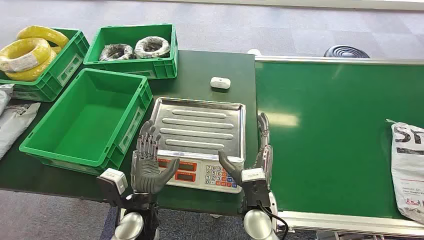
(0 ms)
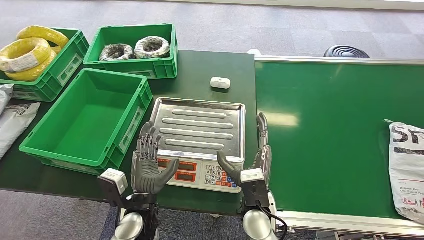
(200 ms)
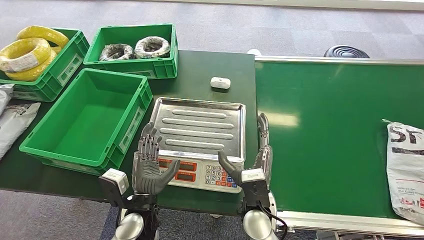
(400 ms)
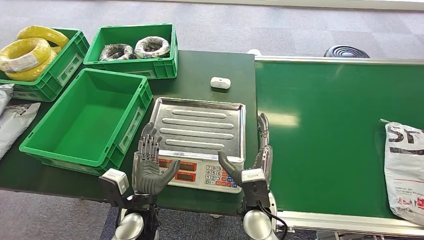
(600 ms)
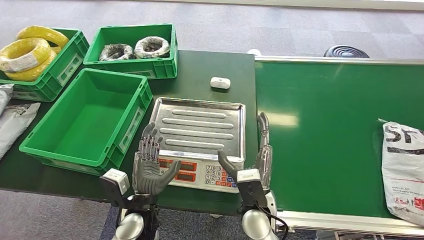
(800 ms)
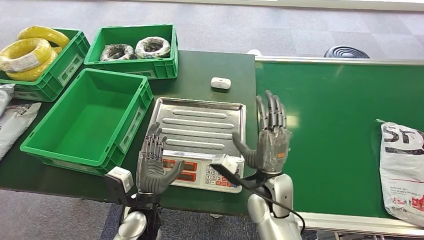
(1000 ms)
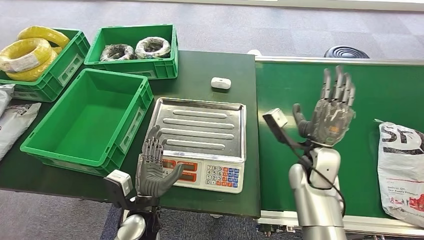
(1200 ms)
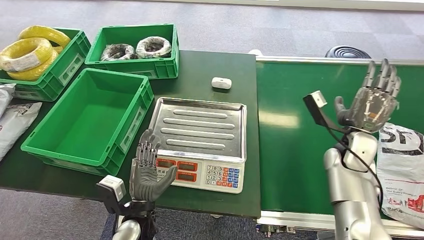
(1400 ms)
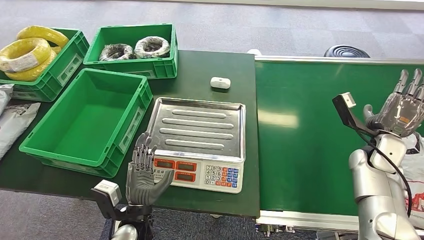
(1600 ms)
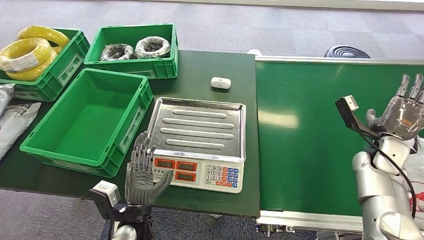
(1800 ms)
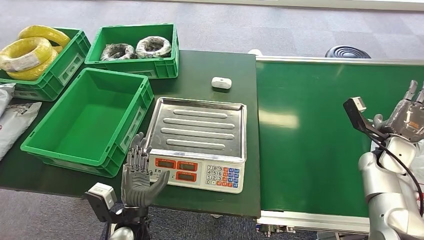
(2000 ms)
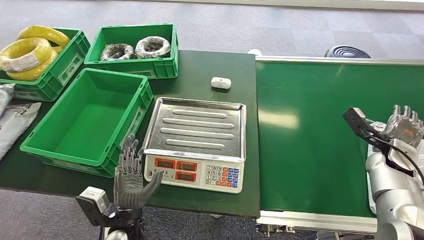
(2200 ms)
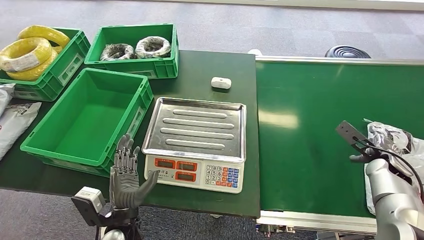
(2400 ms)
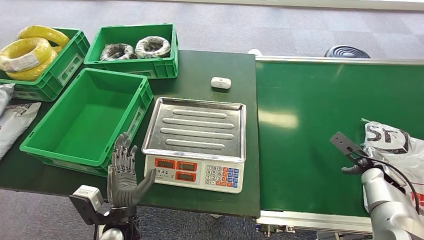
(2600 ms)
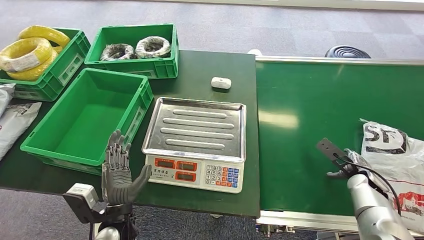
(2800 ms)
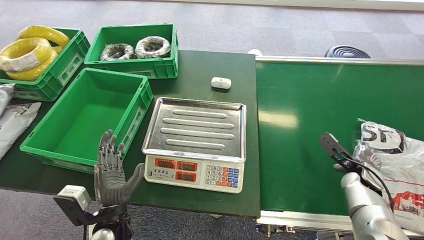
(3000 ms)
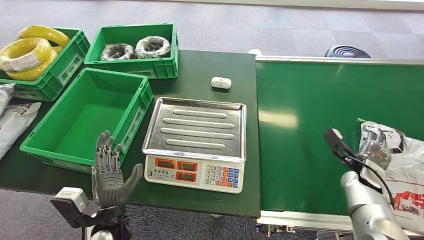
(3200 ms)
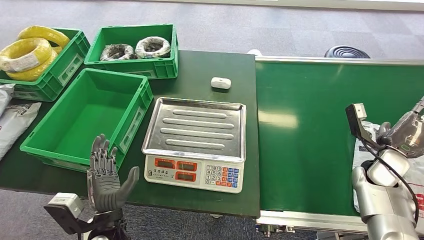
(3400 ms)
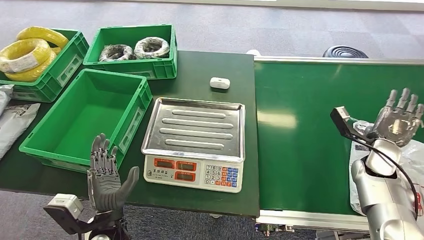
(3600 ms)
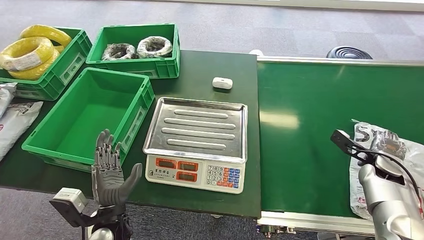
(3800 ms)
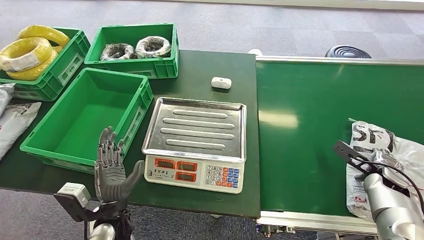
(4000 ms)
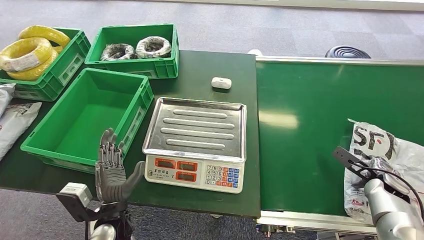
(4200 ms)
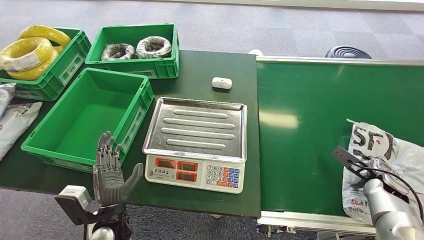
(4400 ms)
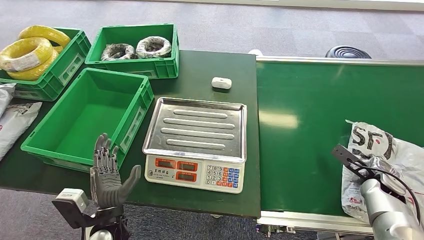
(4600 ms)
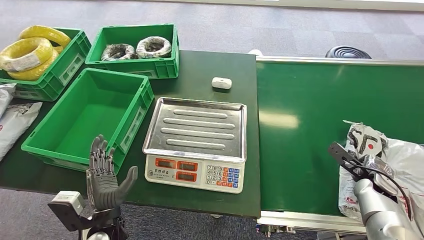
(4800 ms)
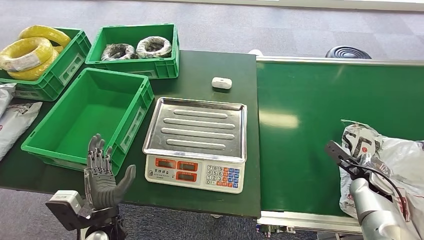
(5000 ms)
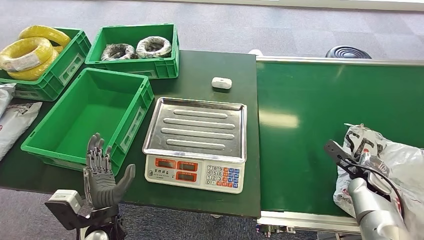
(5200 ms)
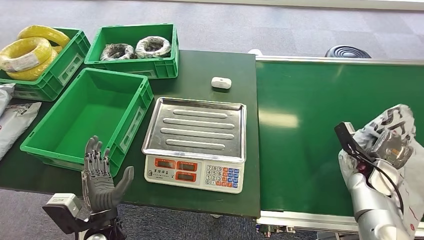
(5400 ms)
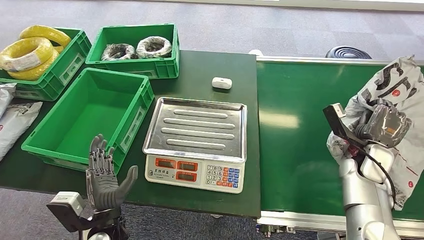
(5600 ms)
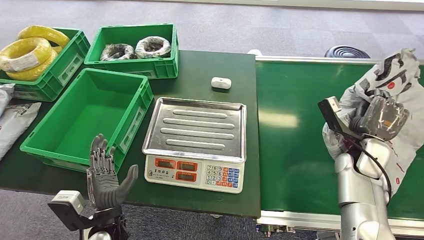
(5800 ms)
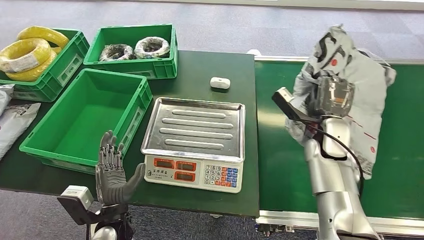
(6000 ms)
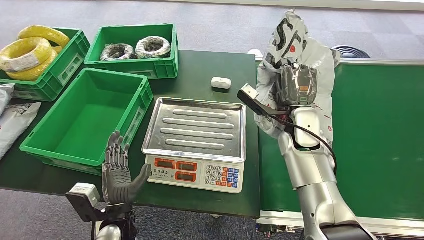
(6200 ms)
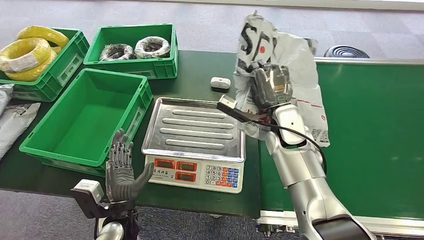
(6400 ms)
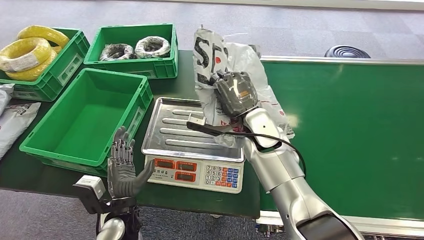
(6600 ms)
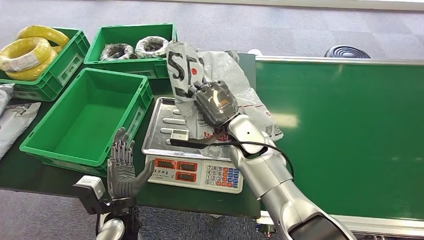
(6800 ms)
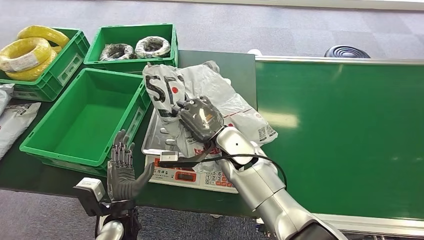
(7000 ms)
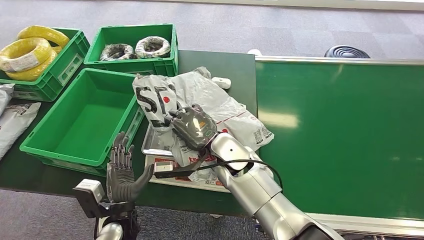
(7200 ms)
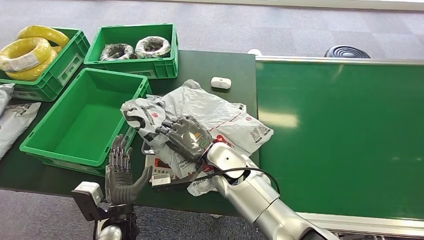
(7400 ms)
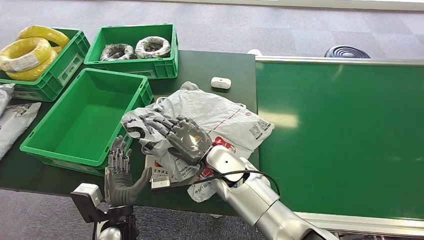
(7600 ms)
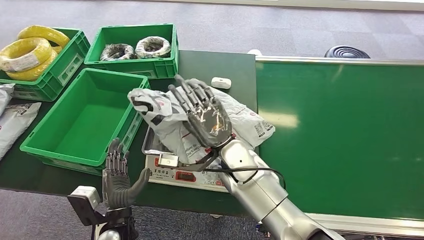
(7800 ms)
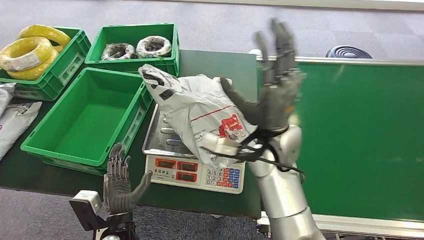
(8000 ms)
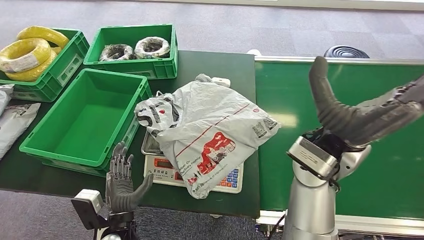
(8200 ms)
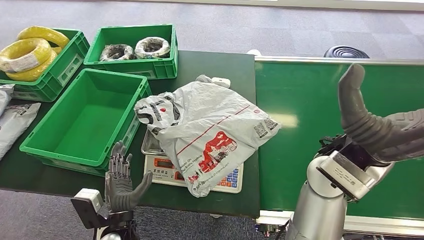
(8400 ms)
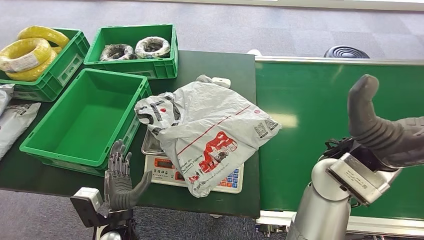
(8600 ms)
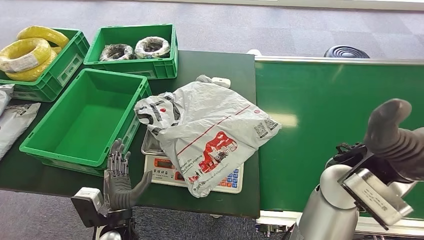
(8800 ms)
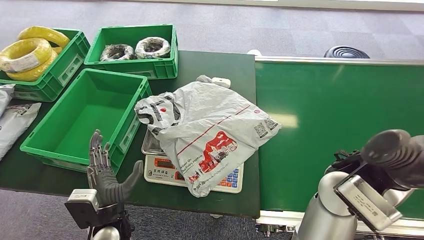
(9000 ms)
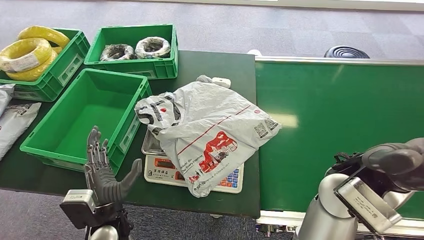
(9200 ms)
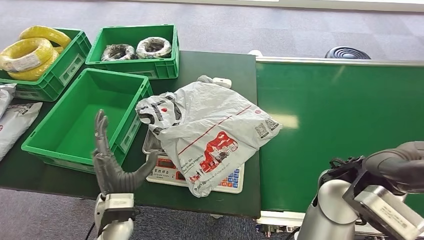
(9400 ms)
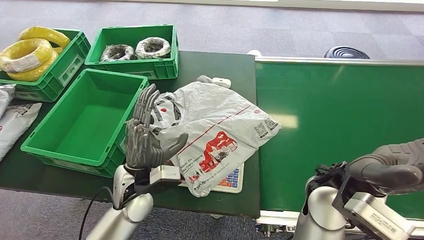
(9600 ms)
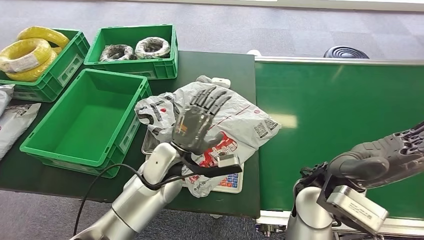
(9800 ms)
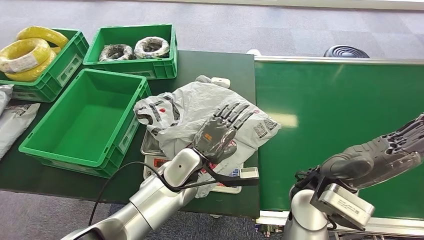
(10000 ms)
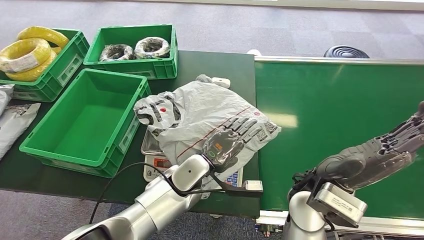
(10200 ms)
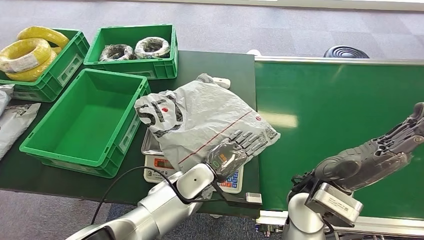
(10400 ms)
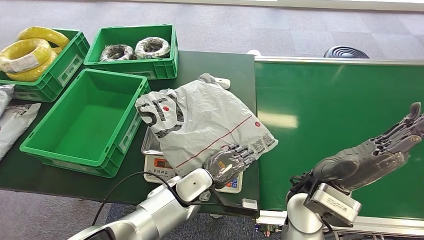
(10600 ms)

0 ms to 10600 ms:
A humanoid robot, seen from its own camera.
Step, 0 ms to 5800 ms: Pick up the package from the conveyor belt.
Step, 6200 ms to 8600 ms: Place the package onto the inbound machine.
1600 ms to 3000 ms: The right hand travels downward by some 10 cm.
3000 ms to 4600 ms: The right hand ends up approximately 5 cm from where it was.

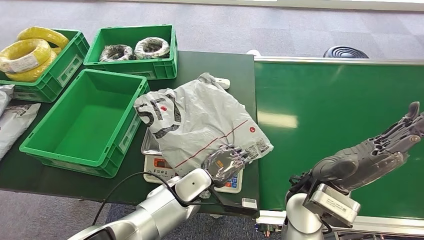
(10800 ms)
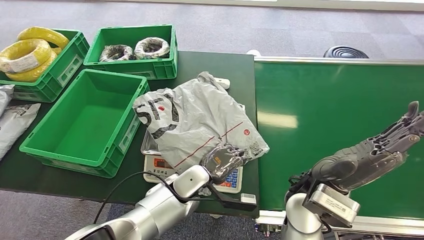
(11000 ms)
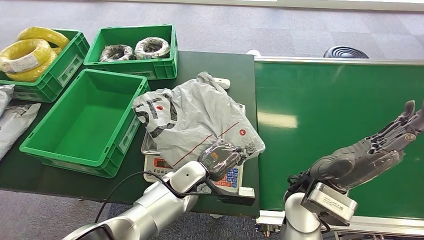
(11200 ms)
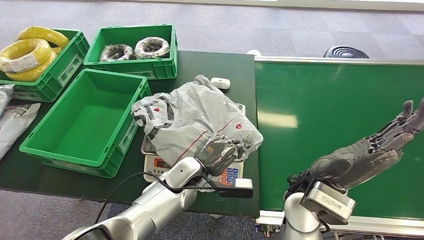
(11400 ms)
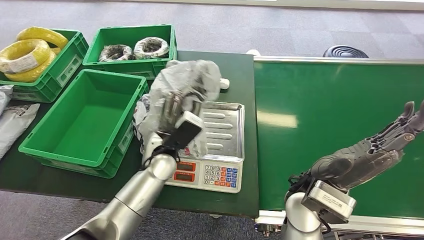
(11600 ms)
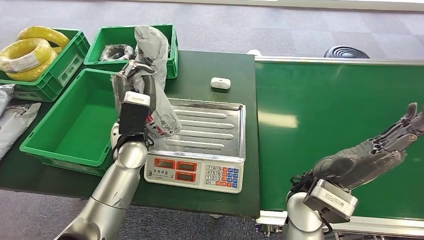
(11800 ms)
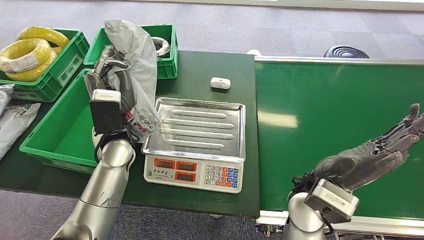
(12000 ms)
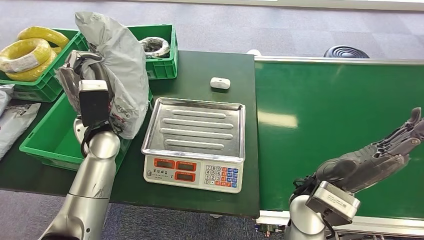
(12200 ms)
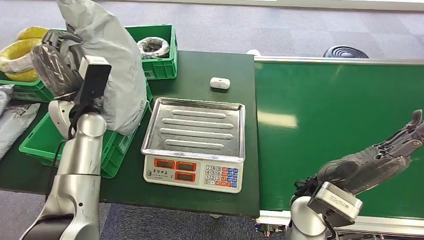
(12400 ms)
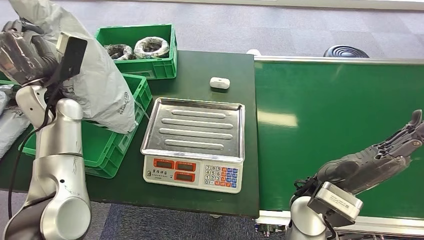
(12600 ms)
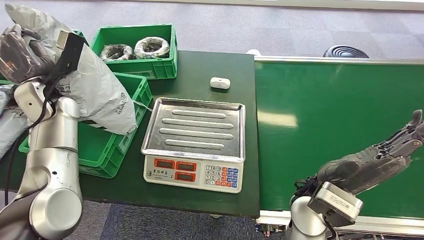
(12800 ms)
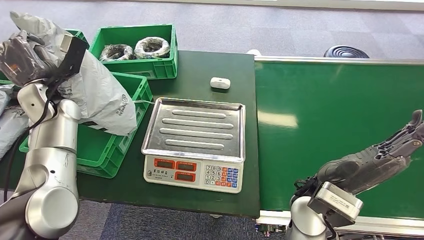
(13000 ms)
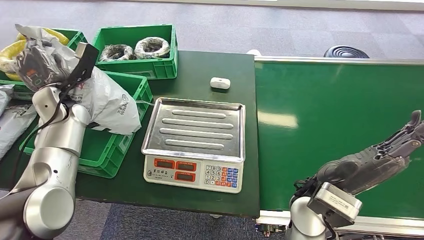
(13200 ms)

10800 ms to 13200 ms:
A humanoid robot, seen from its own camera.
Step, 12400 ms to 13200 ms: Place the package into the parcel locker.

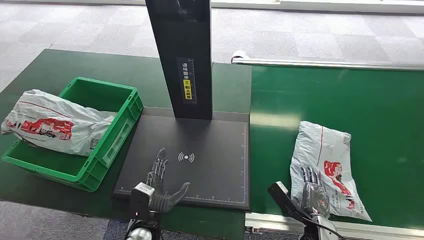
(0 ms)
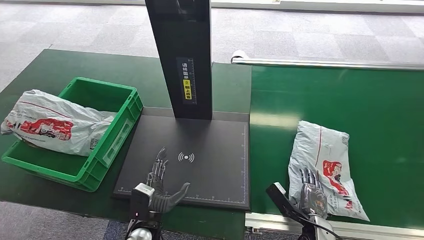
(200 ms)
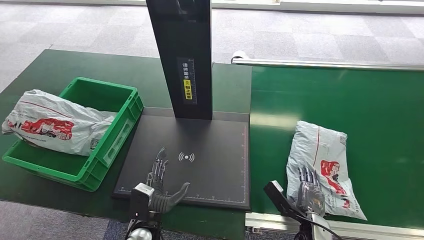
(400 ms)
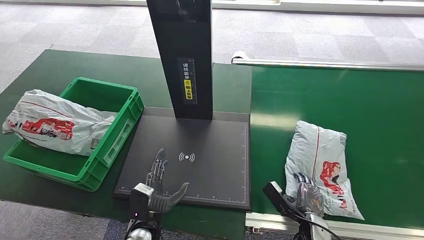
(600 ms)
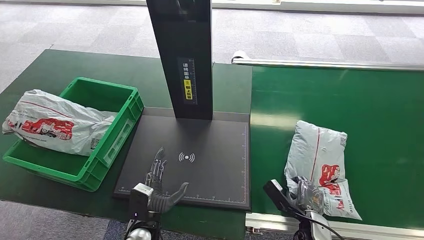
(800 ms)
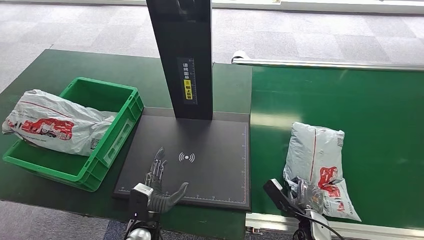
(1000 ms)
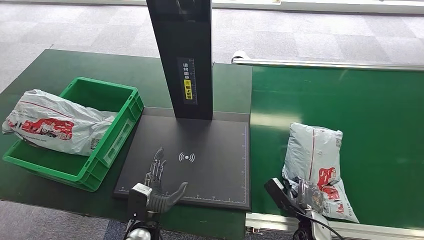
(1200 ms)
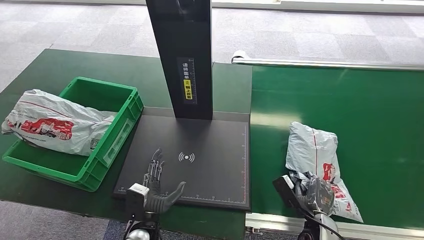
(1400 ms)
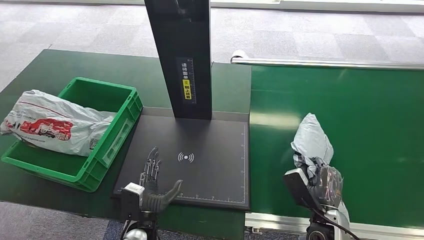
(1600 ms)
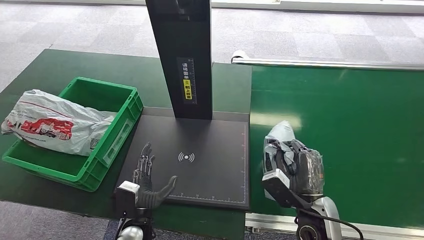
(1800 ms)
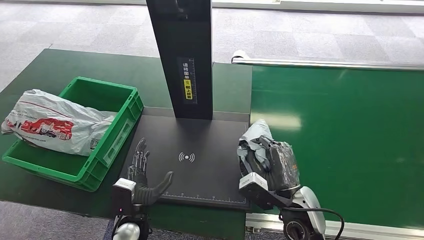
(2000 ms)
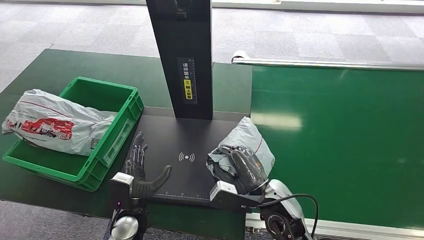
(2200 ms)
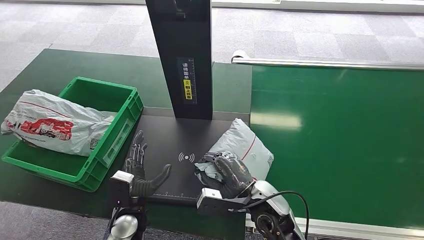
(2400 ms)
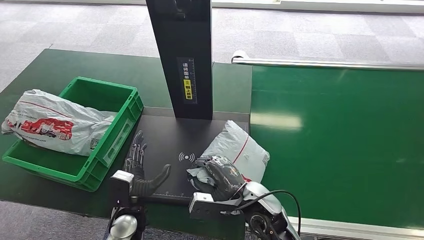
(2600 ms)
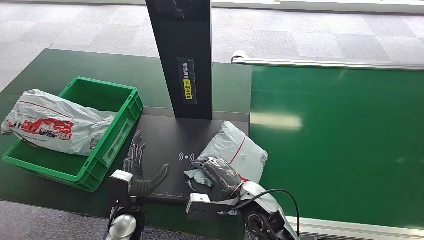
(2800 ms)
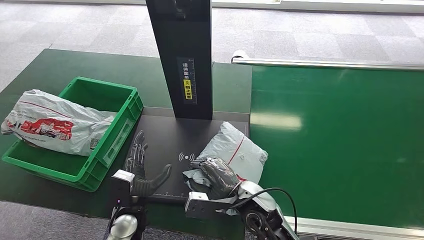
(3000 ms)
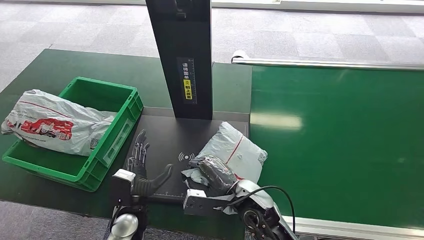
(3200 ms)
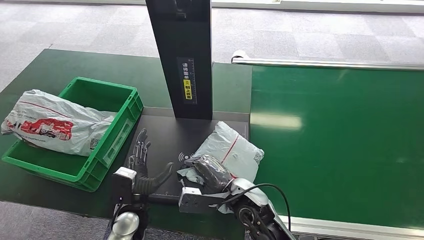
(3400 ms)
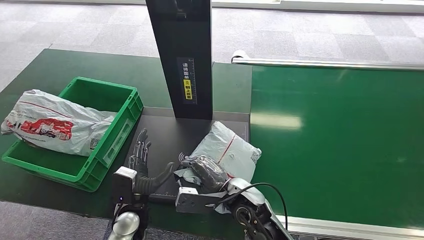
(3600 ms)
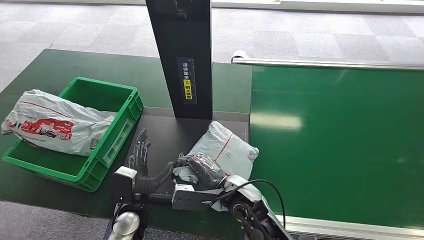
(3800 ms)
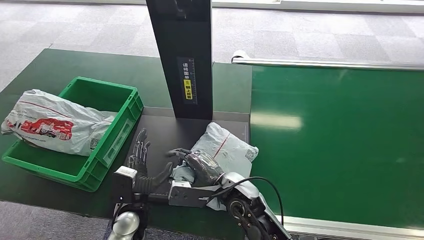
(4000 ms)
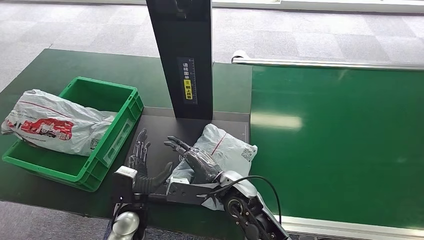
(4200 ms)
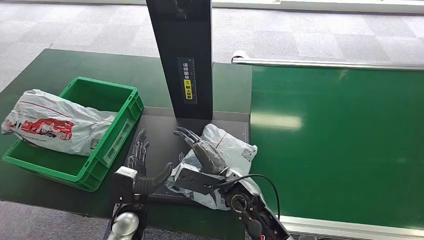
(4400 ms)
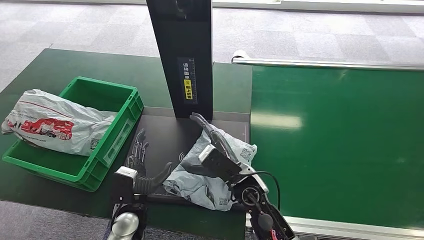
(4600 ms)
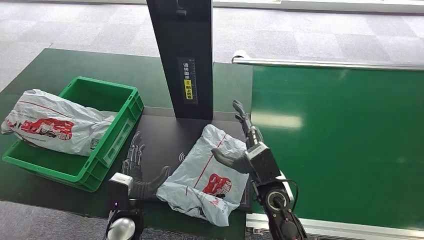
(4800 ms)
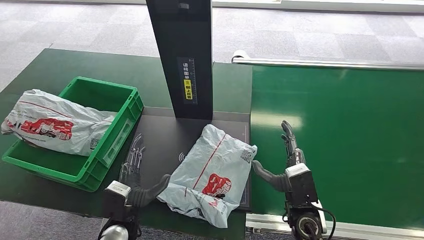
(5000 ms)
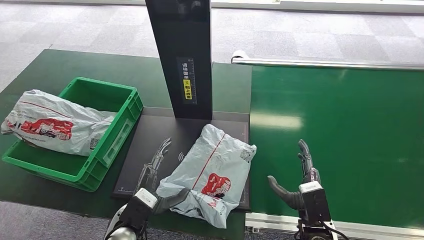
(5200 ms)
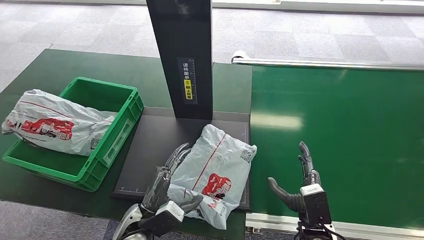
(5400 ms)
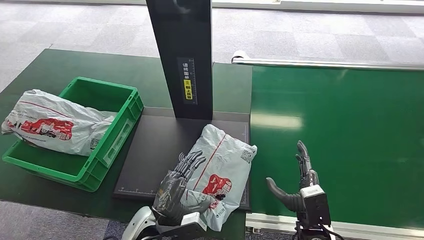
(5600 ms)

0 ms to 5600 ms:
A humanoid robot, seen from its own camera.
Step, 0 ms to 1800 ms: Pick up the package from the conveyor belt.
Step, 2200 ms to 5000 ms: Place the package onto the inbound machine.
1400 ms to 2800 ms: The left hand moves some 5 cm. Meanwhile the right hand is displaced to the left and upward by approximately 20 cm.
2800 ms to 4200 ms: The right hand moves approximately 5 cm.
4200 ms to 5600 ms: The left hand changes place by approximately 5 cm. Meanwhile the right hand travels to the right and backward by some 20 cm.
